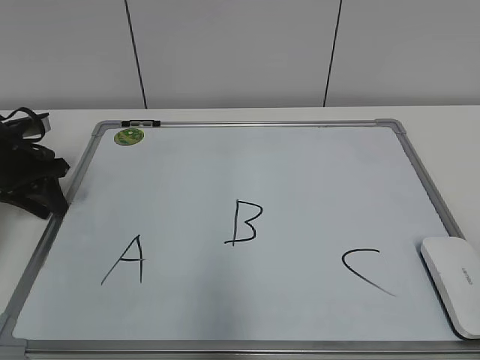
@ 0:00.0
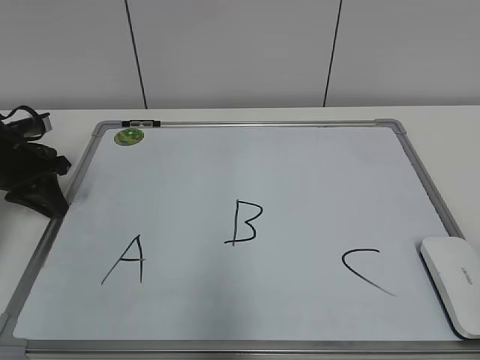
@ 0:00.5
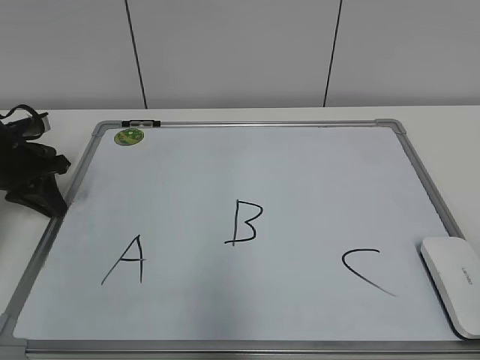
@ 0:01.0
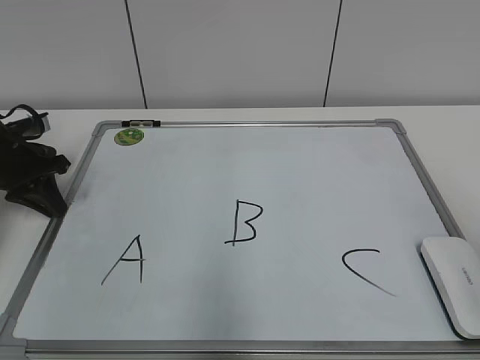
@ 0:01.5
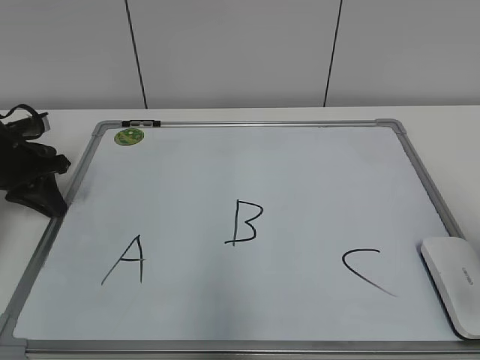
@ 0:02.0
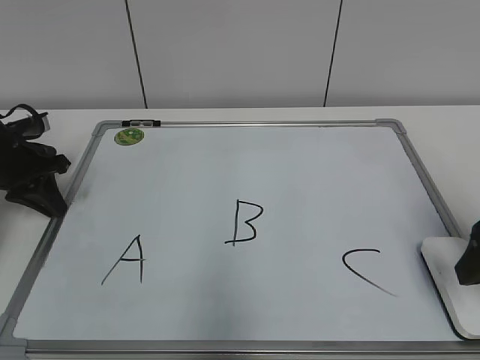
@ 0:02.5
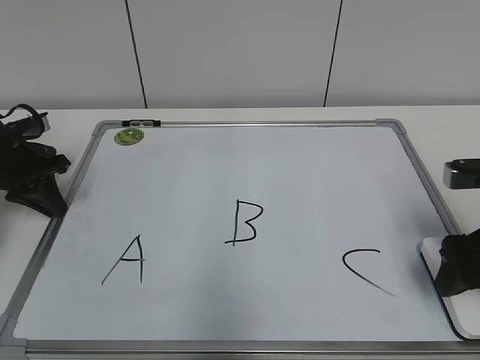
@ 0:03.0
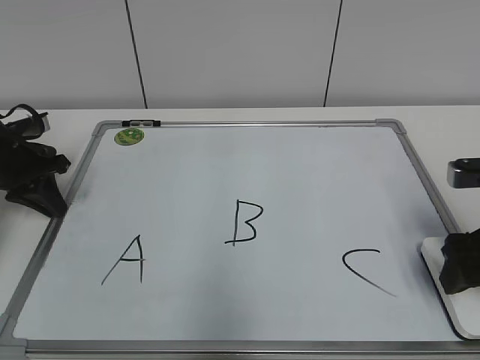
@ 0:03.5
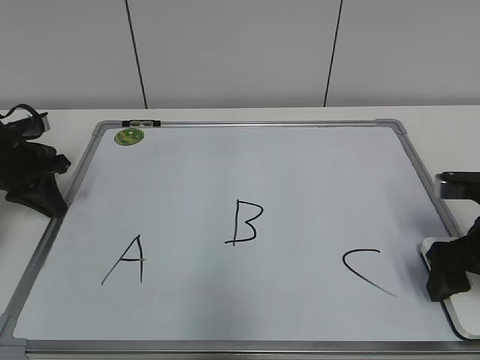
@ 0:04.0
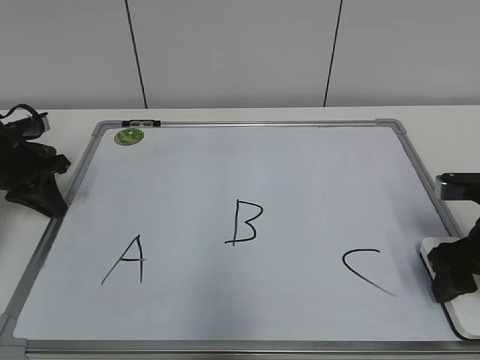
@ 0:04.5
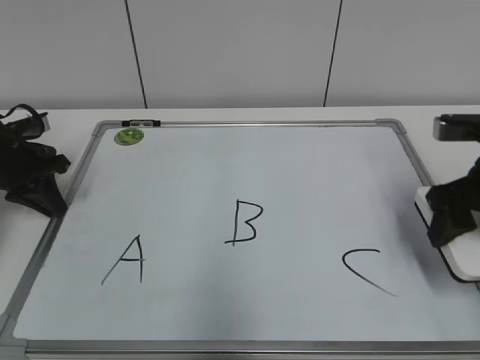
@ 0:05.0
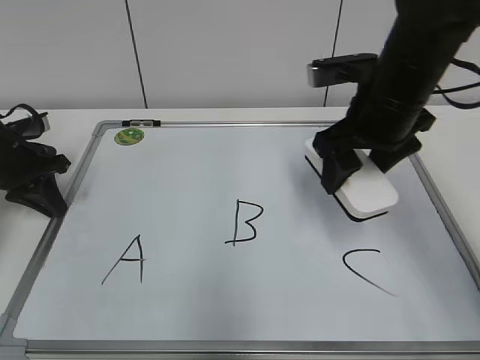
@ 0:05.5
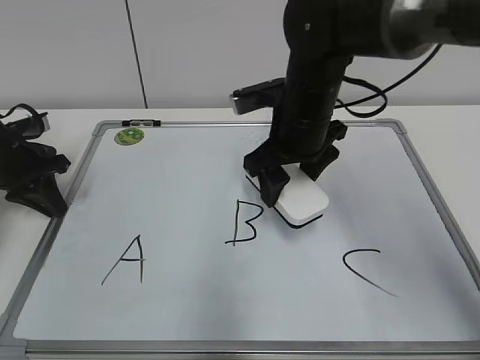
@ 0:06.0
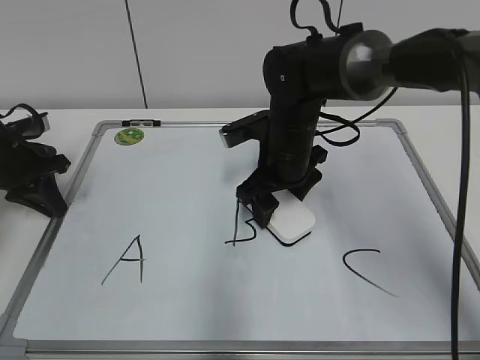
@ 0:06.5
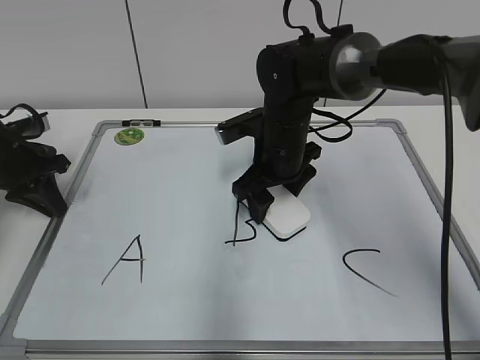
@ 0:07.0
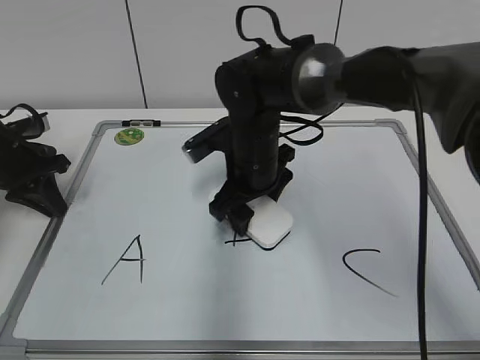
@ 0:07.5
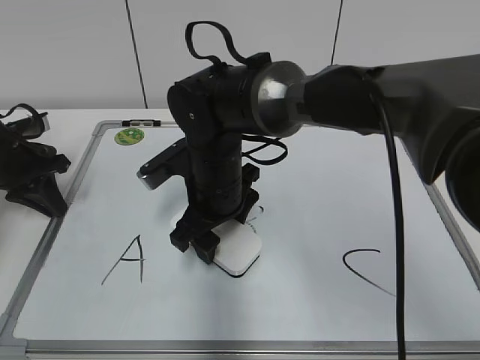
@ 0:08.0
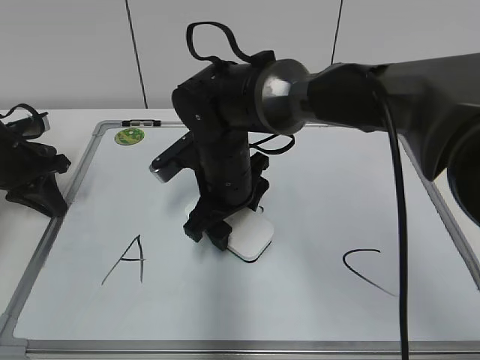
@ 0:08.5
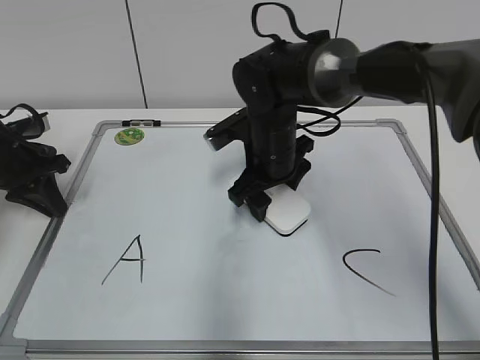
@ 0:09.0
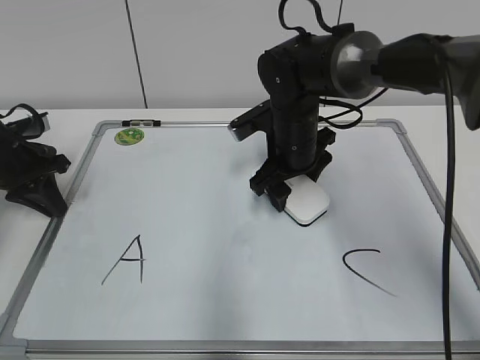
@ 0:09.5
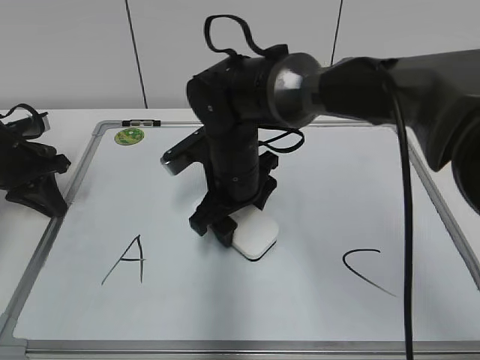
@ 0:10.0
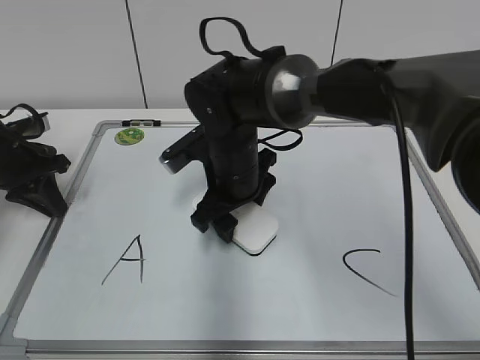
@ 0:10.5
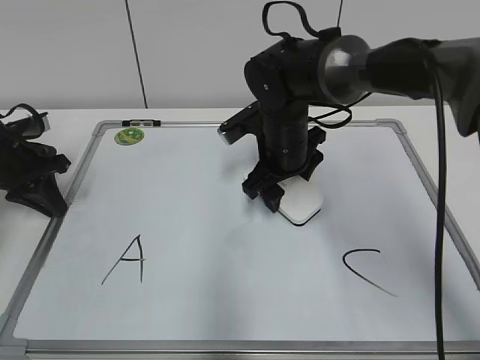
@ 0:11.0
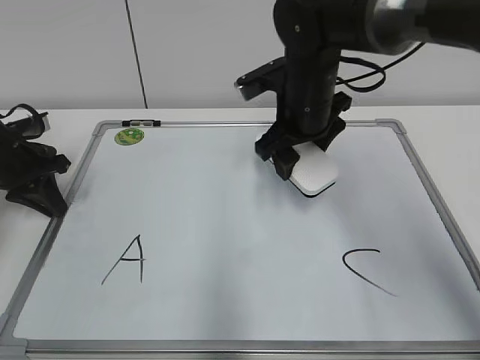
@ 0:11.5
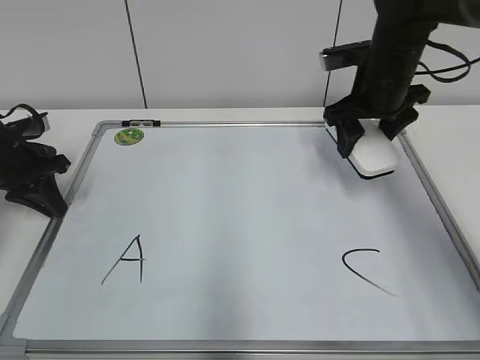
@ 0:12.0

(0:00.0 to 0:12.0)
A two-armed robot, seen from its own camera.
Task of the whole recording: pick up the eraser on the blackboard and erase the letter "B".
Step, 0:01.0 - 0:04.0: Grab the eraser with your right hand.
Step, 0:04.5 - 0:11.0: Erase the letter B with your right hand.
0:00.0 - 0:02.0: The left gripper closes its fingers. Meanwhile the right gripper travels forward by approximately 15 cm.
0:02.0 - 0:04.0: The right gripper goes some 15 cm forward and downward, and opens up.
0:04.0 - 0:06.0: The right gripper shifts some 25 cm to the left and forward, and closes its fingers.
0:06.0 - 0:08.0: The right gripper moves to the left and downward, about 10 cm.
0:08.0 - 0:10.0: The right gripper moves approximately 10 cm to the right and comes back.
0:10.0 - 0:12.0: The right gripper moves to the right and upward, roughly 20 cm.

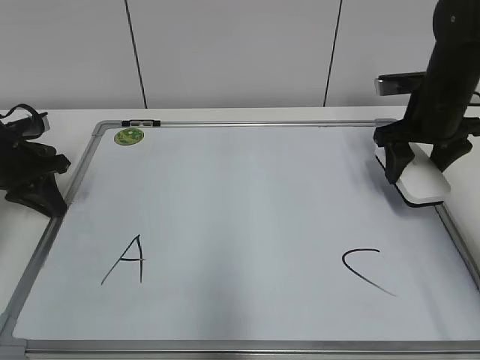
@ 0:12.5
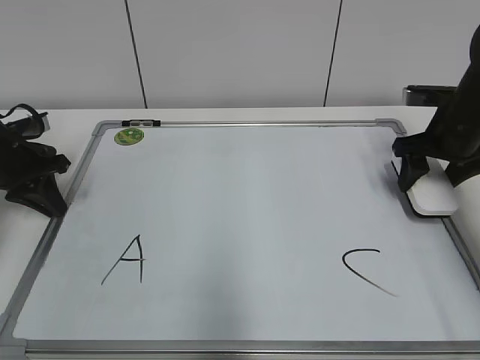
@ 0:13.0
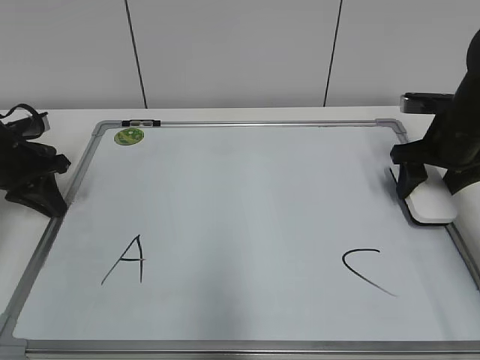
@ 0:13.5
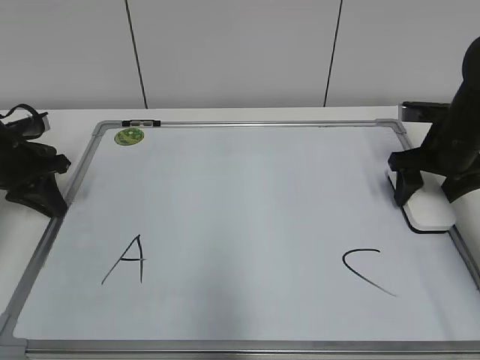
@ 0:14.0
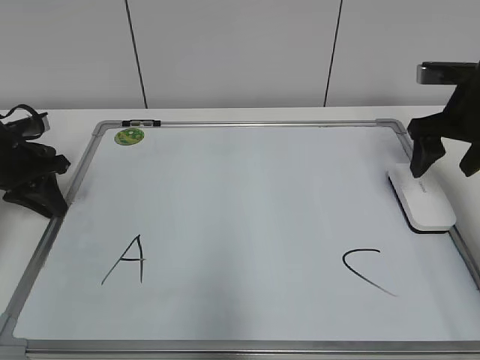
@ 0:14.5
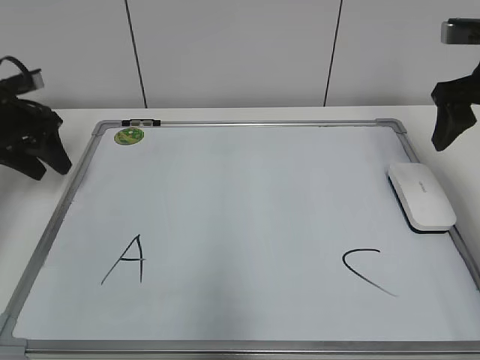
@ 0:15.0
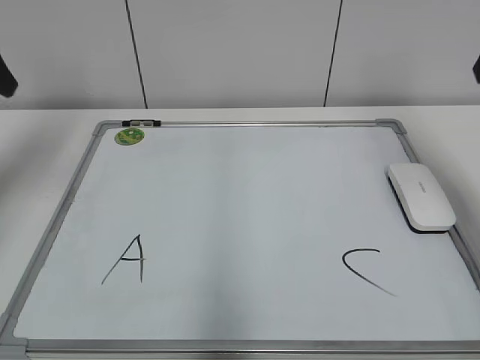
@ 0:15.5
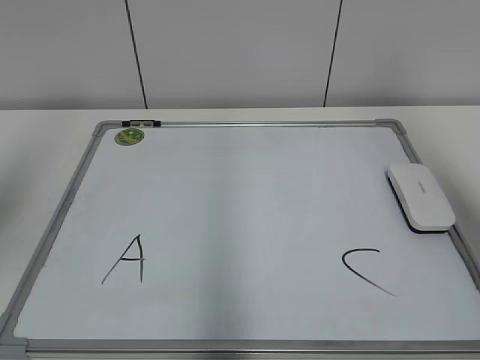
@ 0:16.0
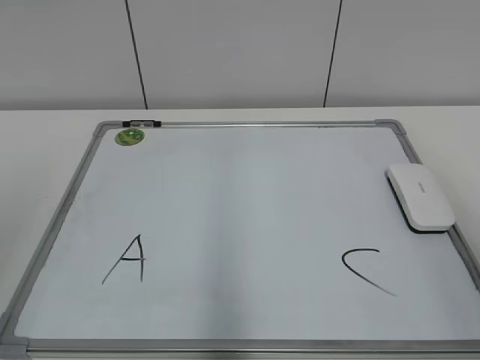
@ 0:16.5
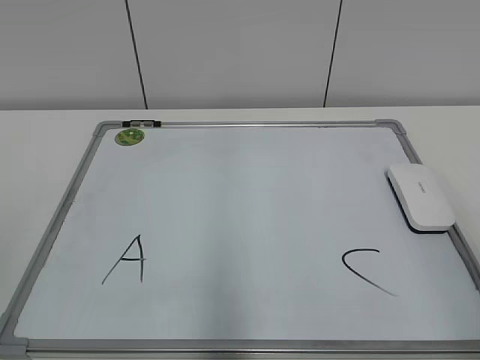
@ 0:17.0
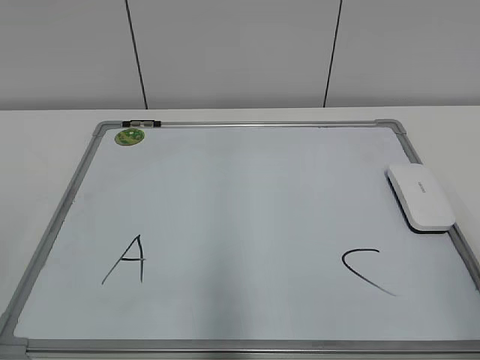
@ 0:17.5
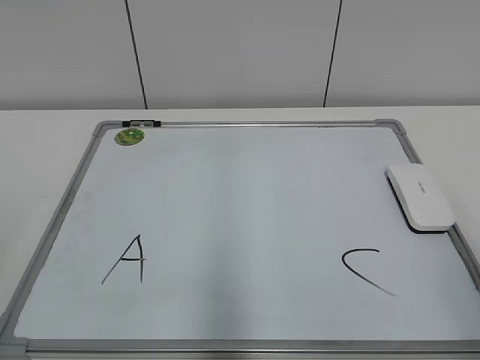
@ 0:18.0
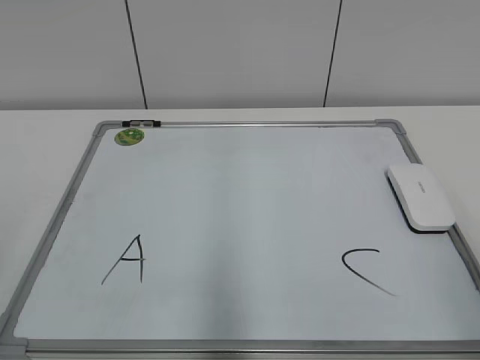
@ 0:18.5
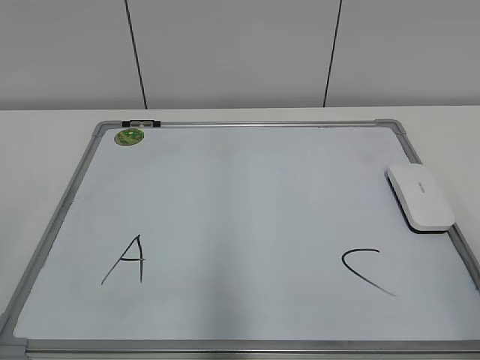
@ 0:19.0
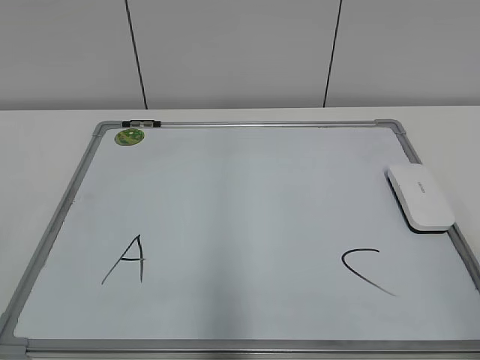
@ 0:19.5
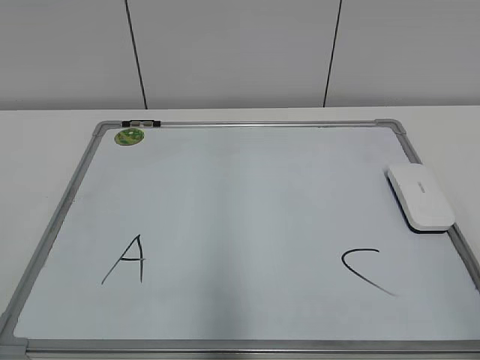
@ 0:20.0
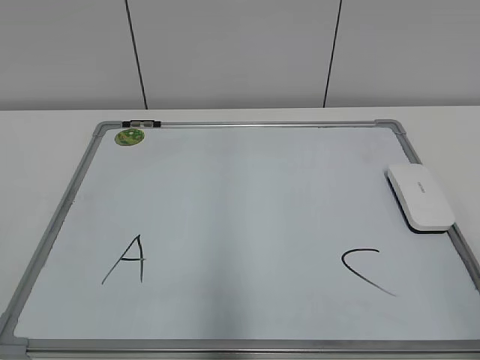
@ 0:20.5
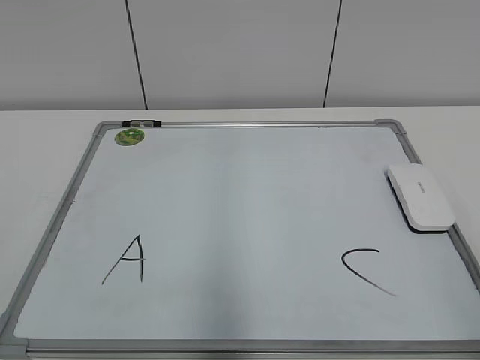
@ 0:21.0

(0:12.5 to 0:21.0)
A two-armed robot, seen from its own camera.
Task of the whole recording: pick up the eraser on the blackboard and erase the letter "B".
Step, 0:12.5 - 0:14.0: Put down the eraser with your right hand.
0:12.5 - 0:14.5: The right gripper opens.
0:14.5 - 0:16.5: The two grippers go roughly 35 cm backward and upward. The left gripper opens up.

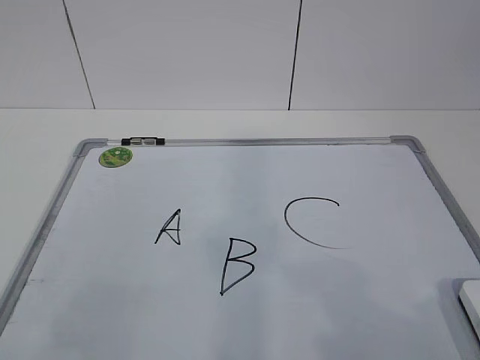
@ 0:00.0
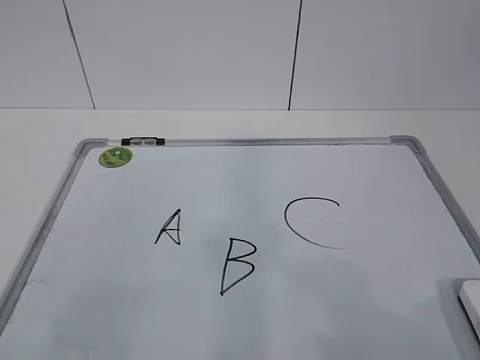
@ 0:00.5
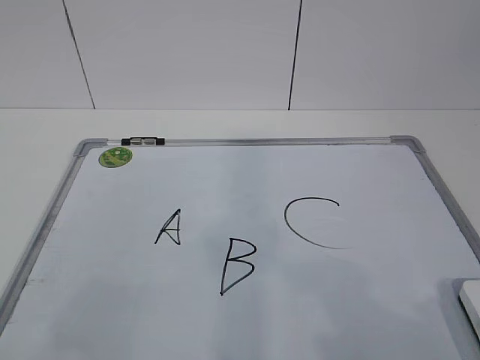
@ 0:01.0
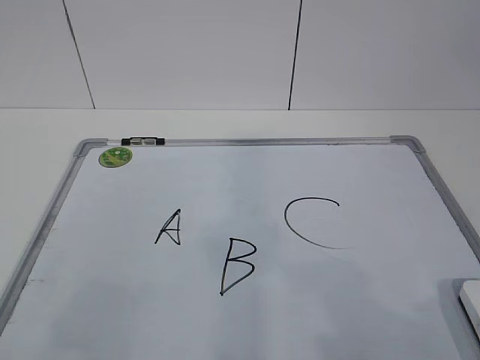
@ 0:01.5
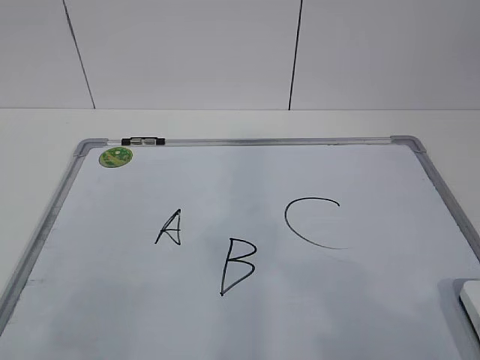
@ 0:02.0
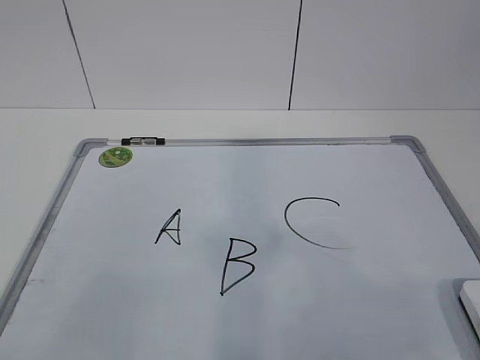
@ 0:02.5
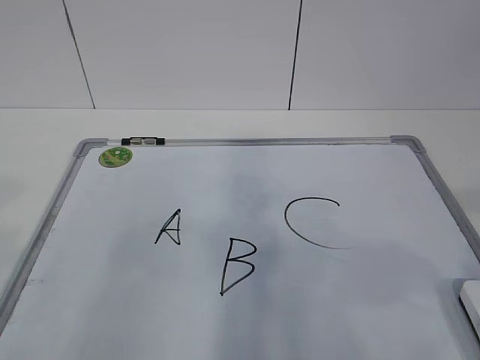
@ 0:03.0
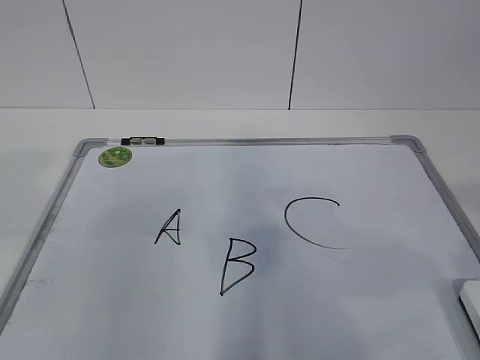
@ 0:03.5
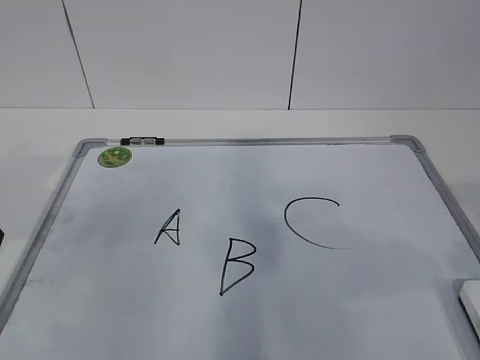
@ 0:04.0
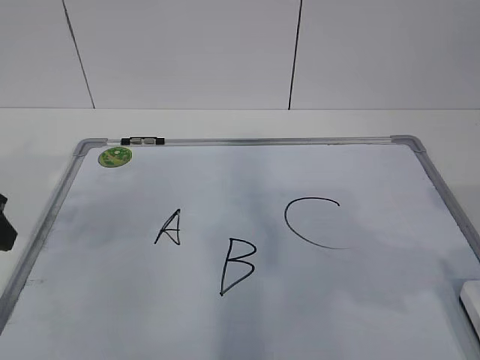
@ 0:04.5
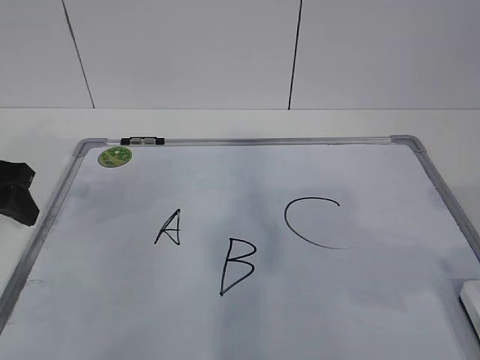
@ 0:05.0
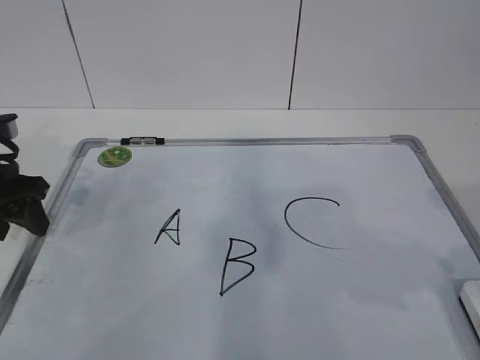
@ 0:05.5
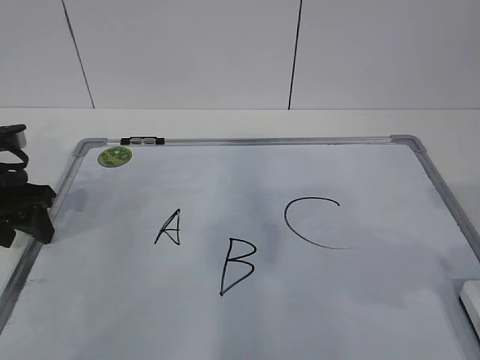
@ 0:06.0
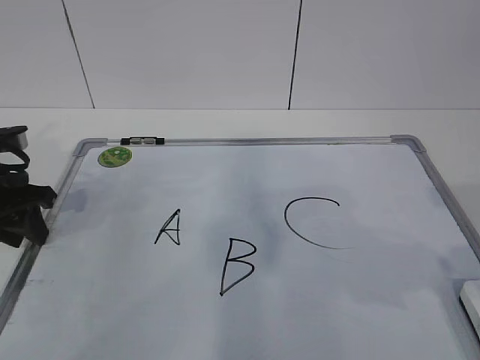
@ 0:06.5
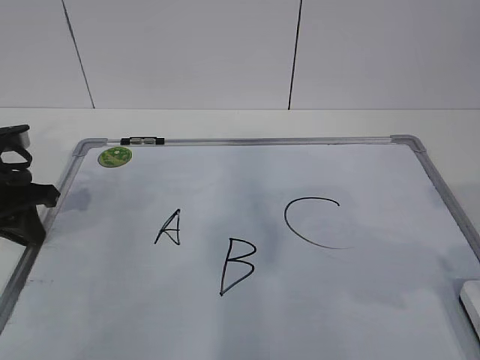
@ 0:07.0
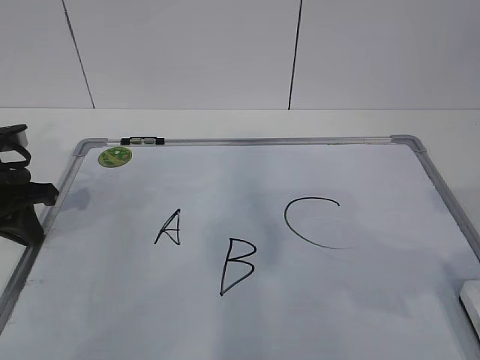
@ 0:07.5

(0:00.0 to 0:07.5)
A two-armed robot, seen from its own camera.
Task of the whole recording: pick up the eraser on the blackboard and erase the letter "B".
Step, 0:00.0 - 0:05.5: Hold the drawing board steady with your left hand.
0:02.0 - 0:04.0: The left gripper shifts some 25 cm forward. Meanwhile the right gripper heads forward, covering roughly 10 cm.
0:04.0 - 0:05.5: The left gripper goes roughly 10 cm forward and downward.
0:05.5 - 0:07.5: The left gripper closes its fingers.
